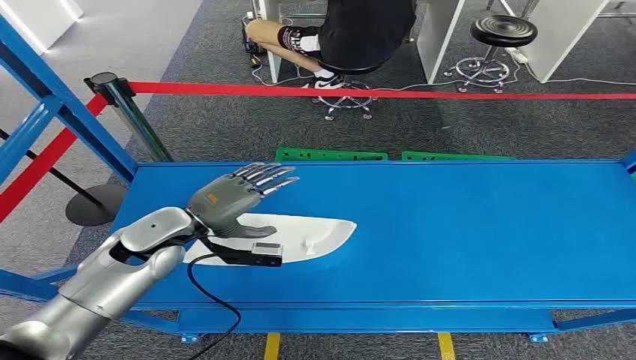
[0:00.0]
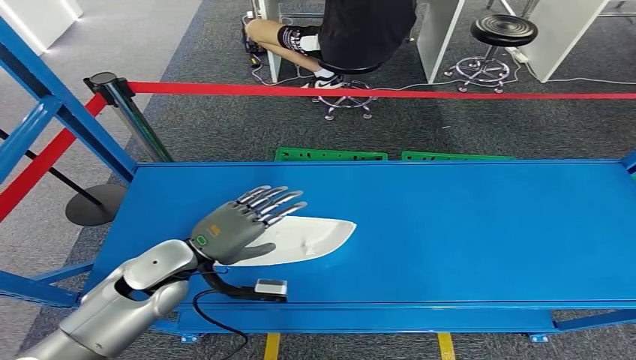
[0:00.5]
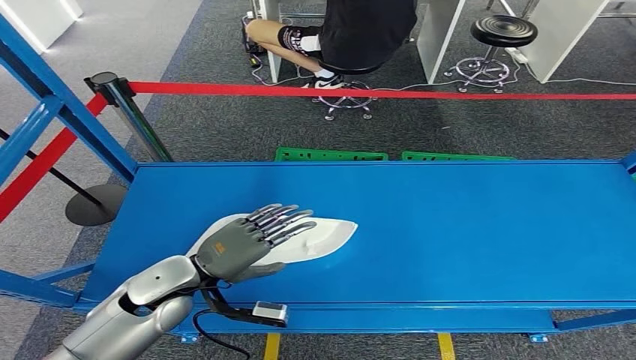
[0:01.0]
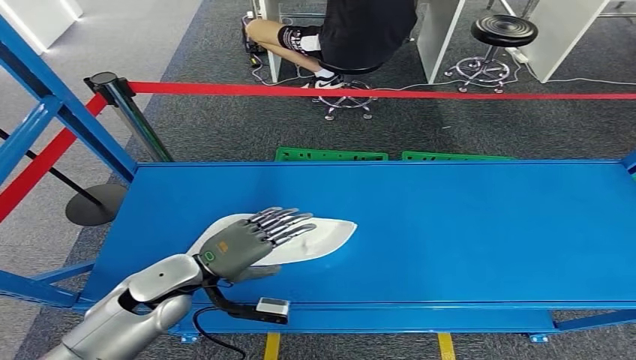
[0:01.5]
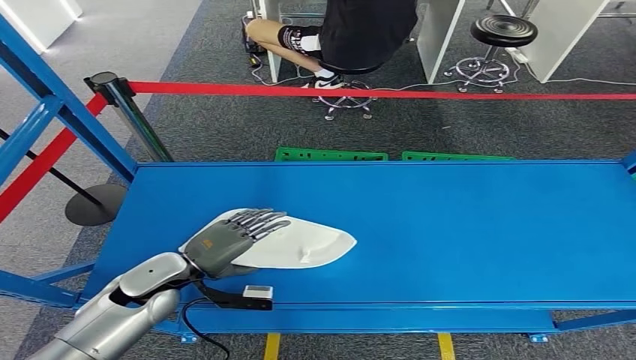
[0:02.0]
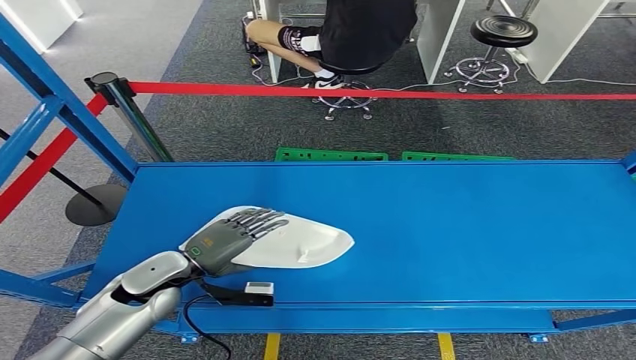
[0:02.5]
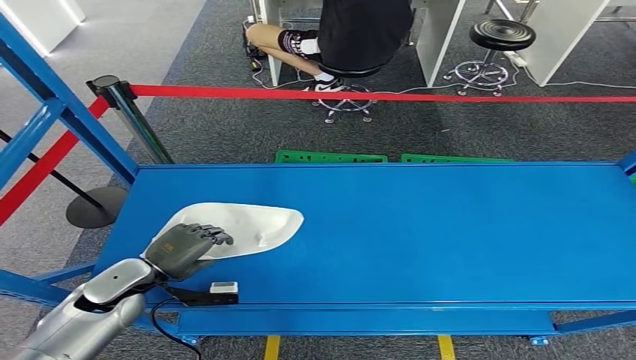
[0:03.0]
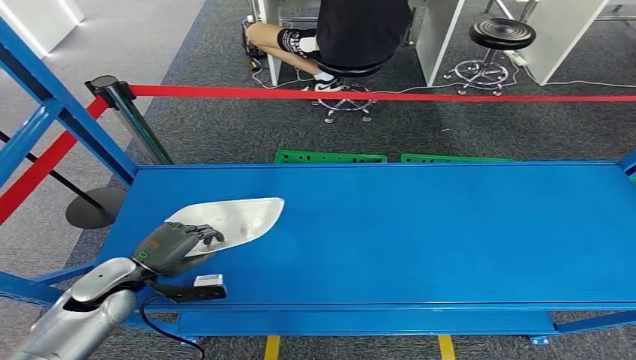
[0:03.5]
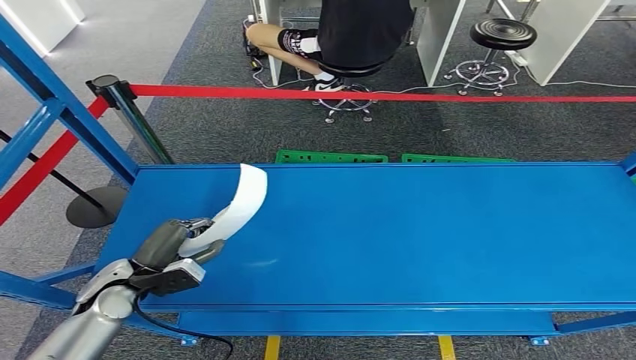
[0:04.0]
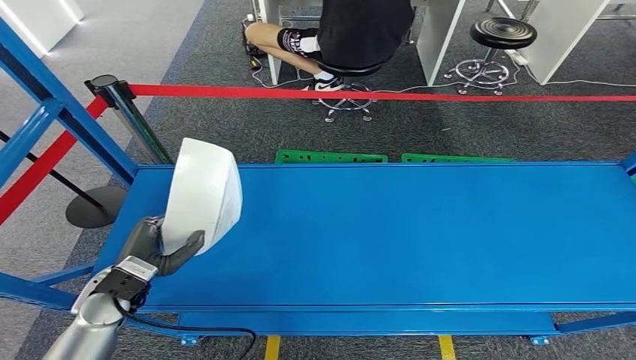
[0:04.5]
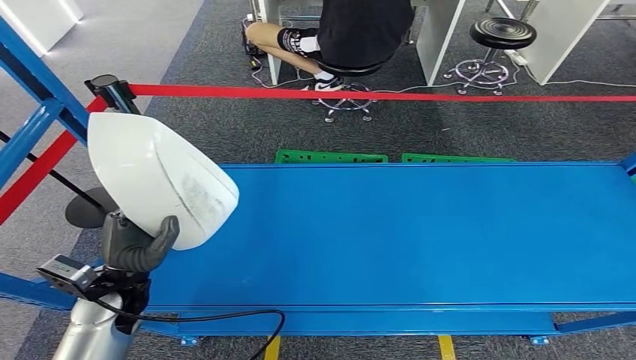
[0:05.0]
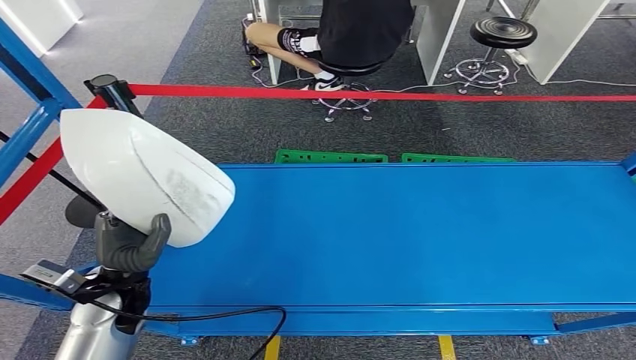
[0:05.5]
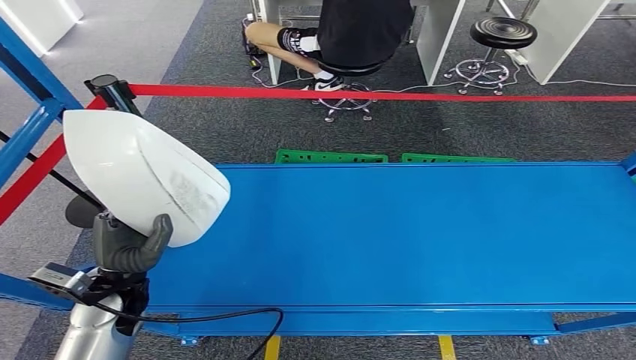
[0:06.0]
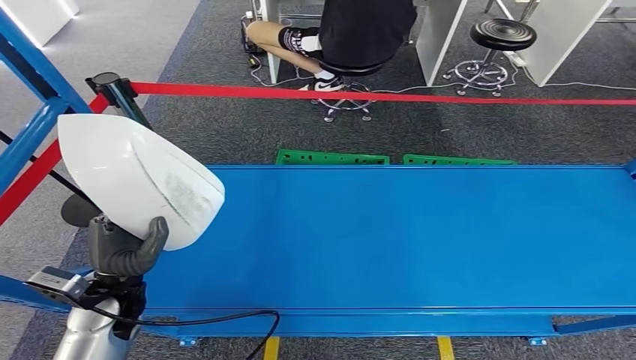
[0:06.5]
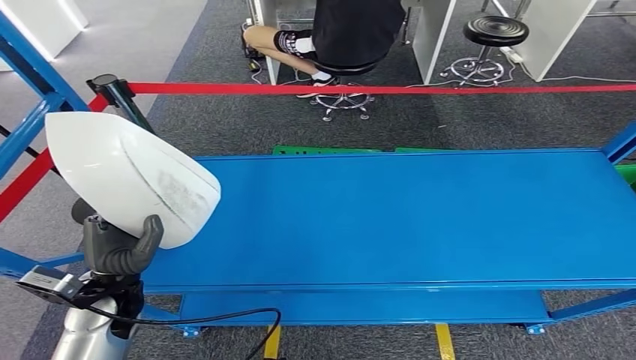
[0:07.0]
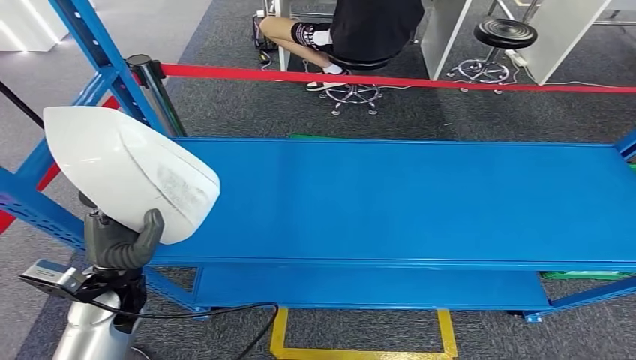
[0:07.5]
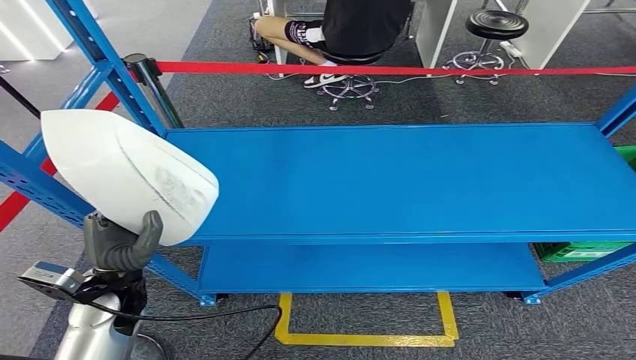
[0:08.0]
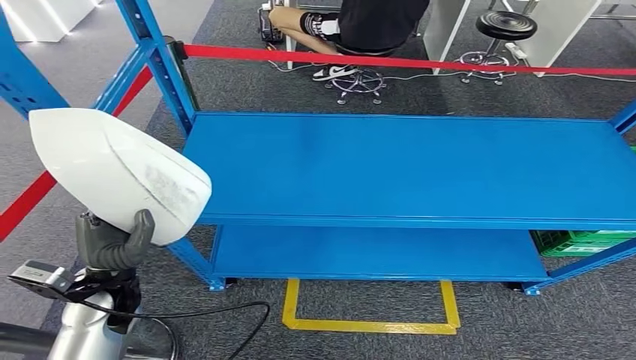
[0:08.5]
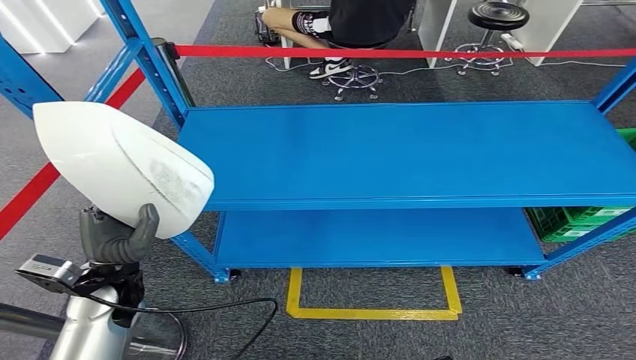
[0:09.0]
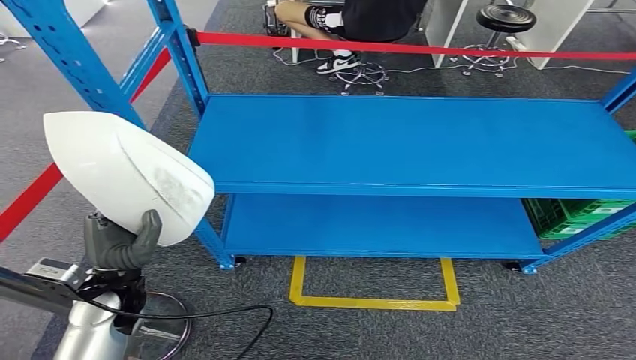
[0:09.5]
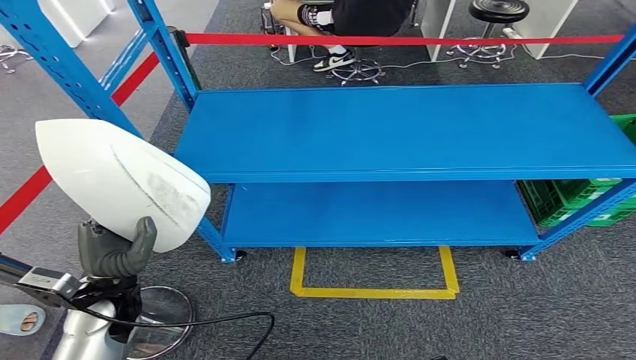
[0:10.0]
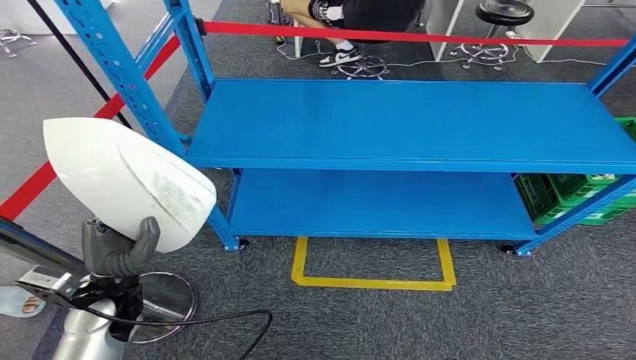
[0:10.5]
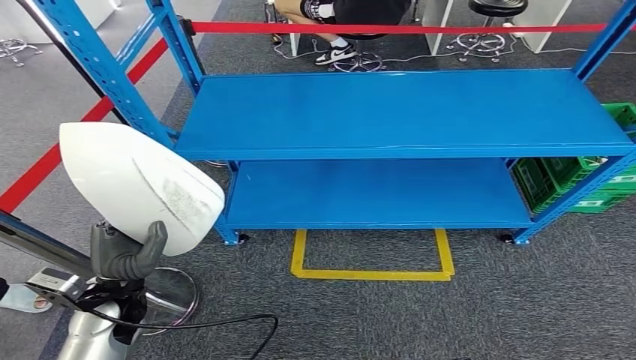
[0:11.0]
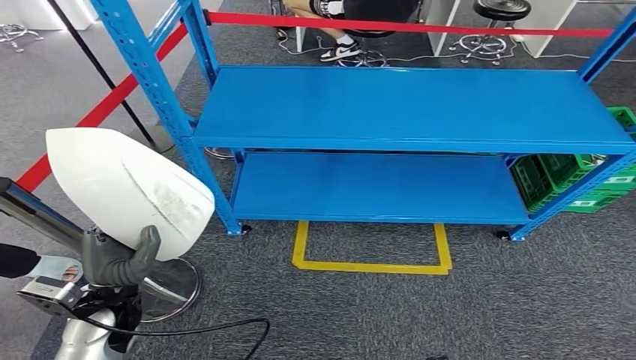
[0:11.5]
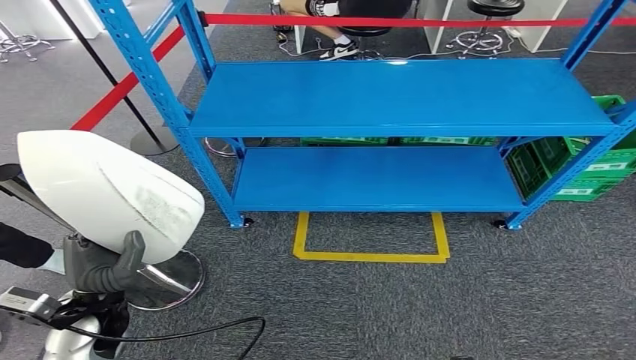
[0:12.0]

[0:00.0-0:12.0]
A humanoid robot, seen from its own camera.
Step, 0:00.0 to 0:06.5: Pick up the small component from the shelf.
0:02.0 to 0:04.0: The left hand heads to the left, covering about 5 cm.
0:04.0 to 0:06.0: The left hand changes place by roughly 5 cm.

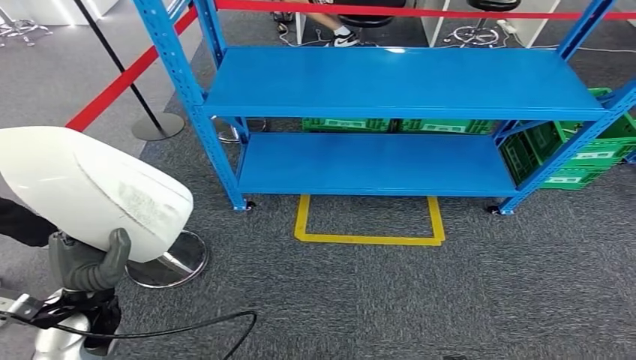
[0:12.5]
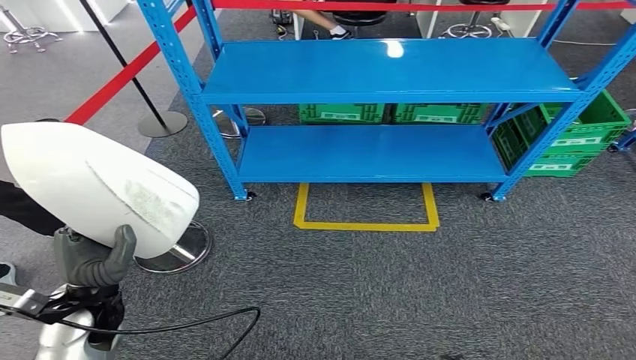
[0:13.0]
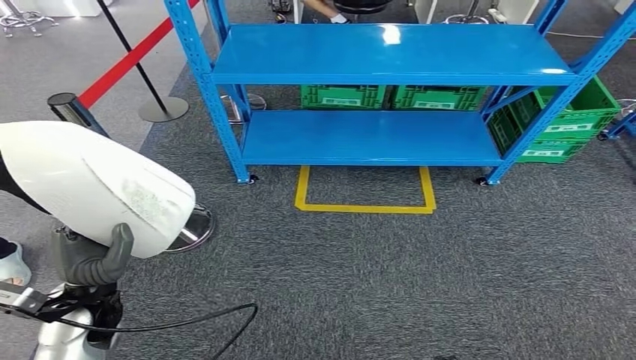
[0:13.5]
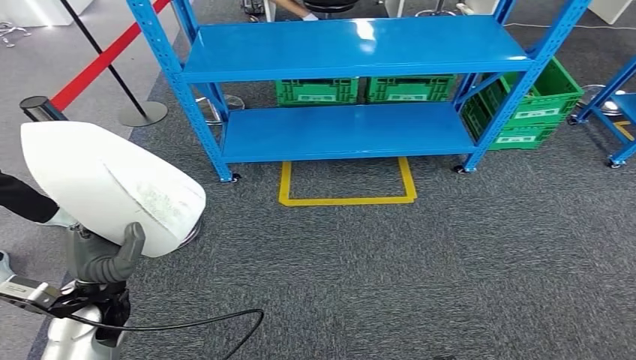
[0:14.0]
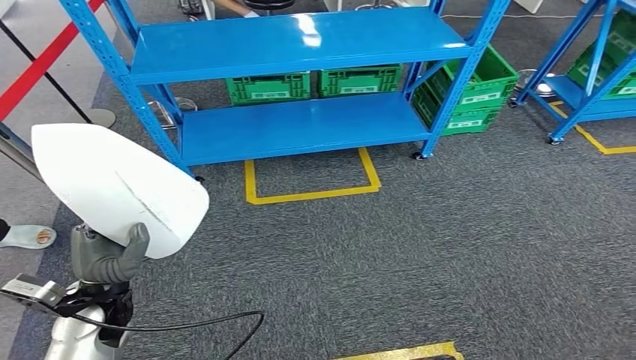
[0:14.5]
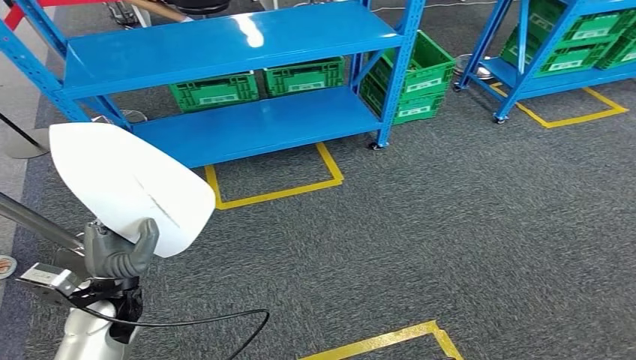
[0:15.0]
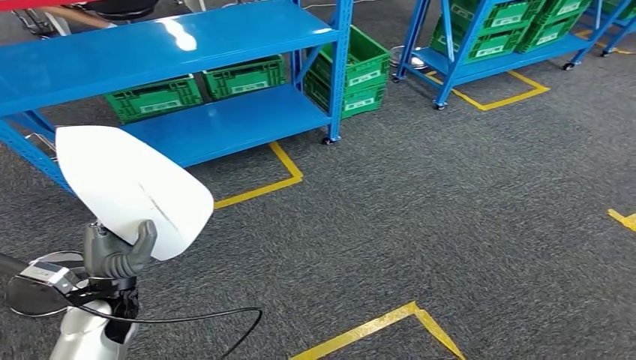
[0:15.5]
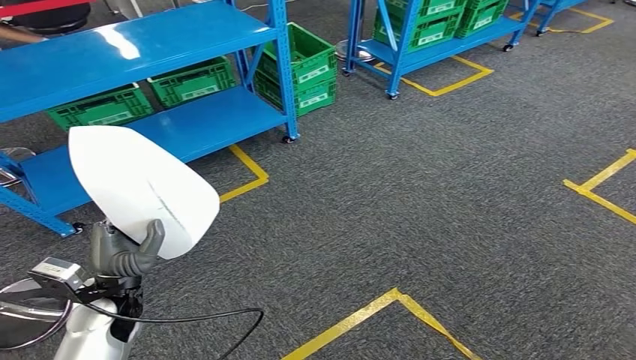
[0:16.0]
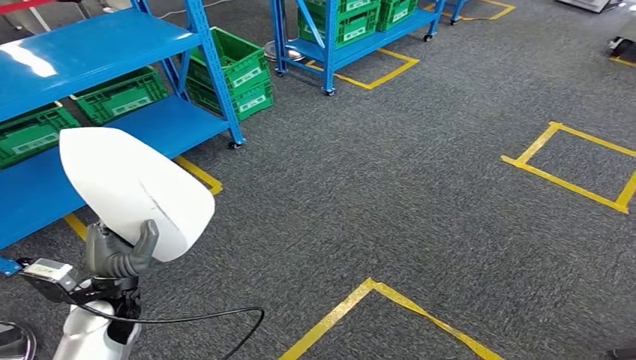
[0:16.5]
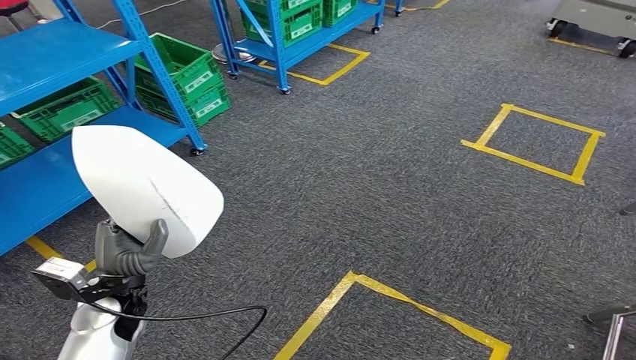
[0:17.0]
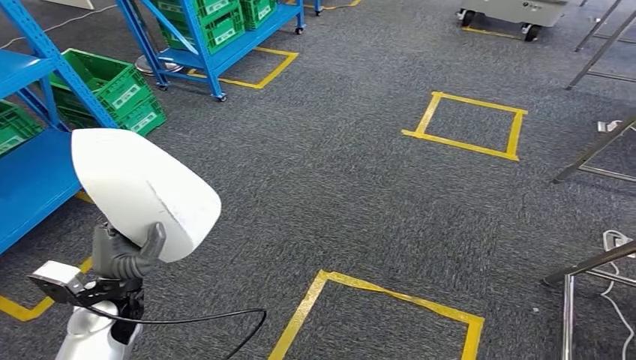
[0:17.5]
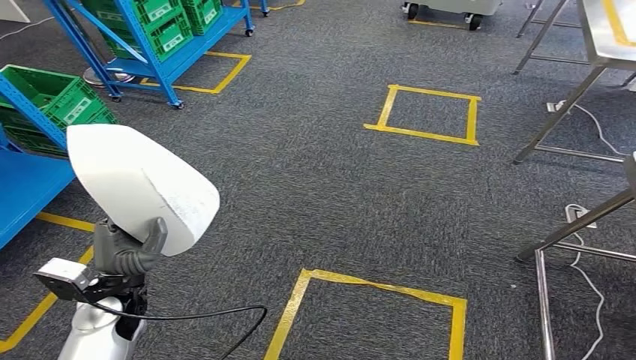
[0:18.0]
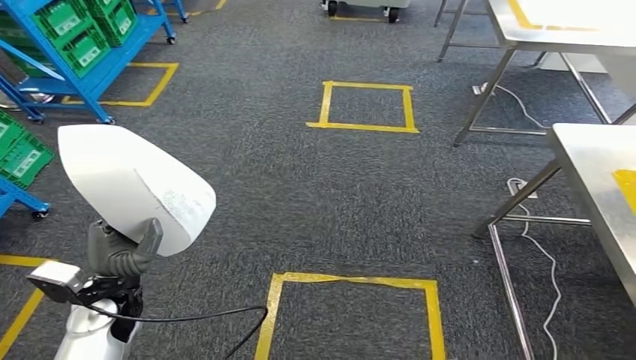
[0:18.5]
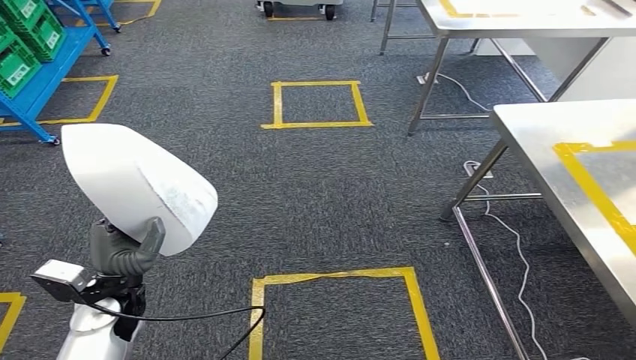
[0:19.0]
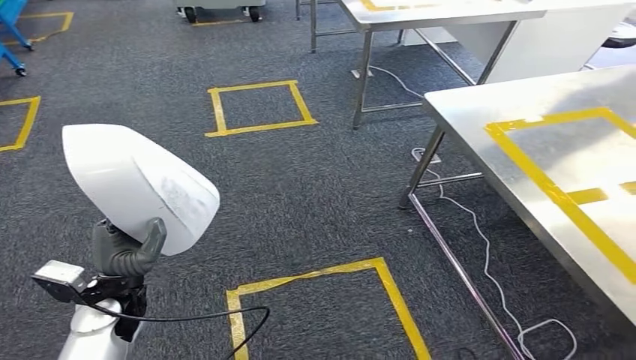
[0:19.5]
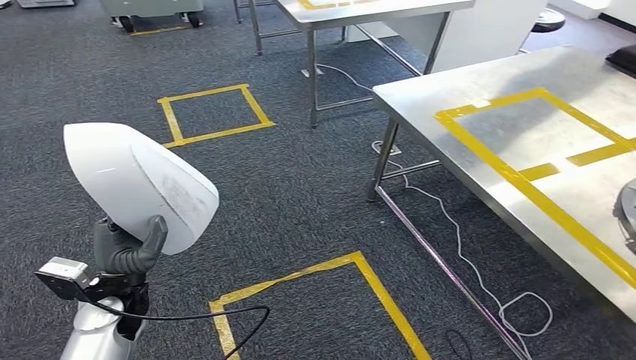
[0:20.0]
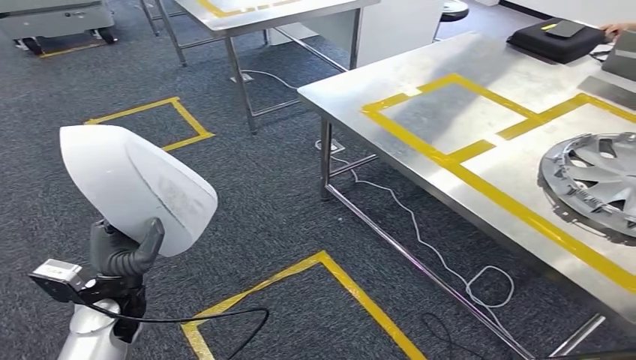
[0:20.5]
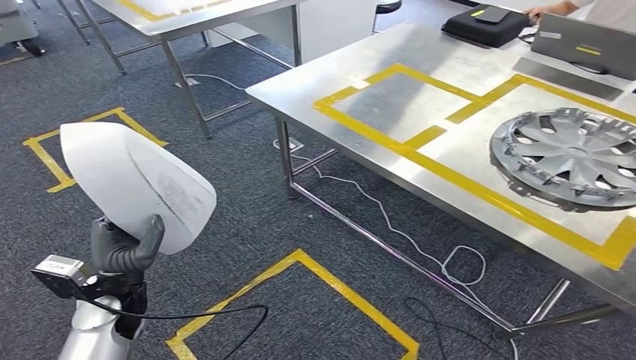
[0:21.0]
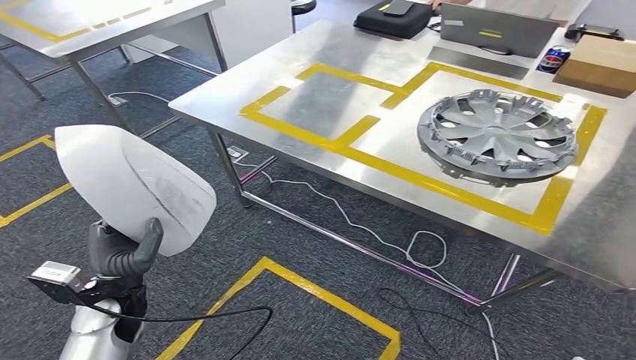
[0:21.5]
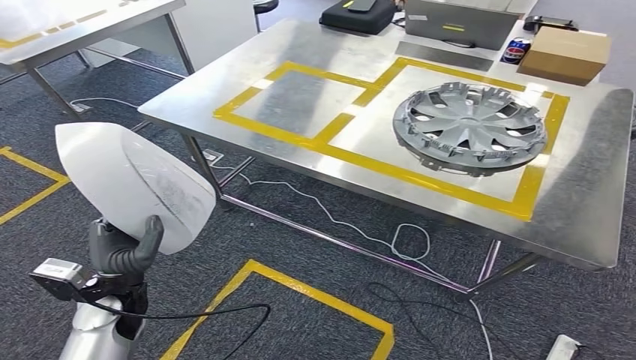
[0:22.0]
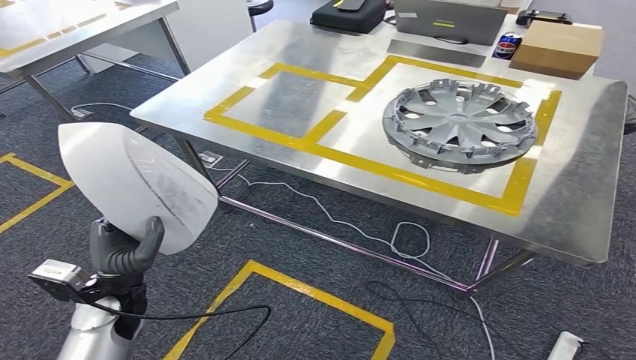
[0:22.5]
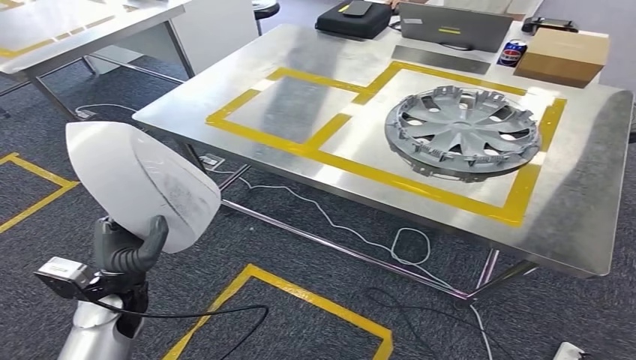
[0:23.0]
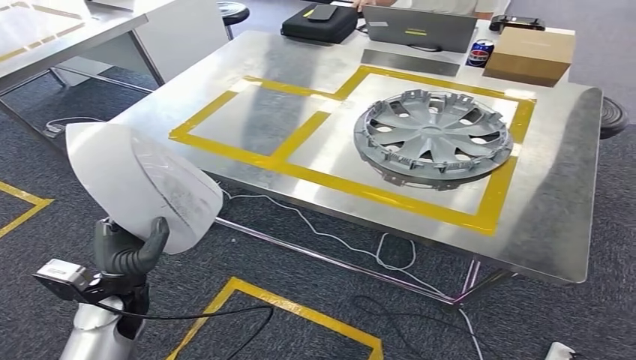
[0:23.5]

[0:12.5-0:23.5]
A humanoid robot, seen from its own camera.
Step, 0:12.5 to 0:23.5: Move the small component to the workbench.
